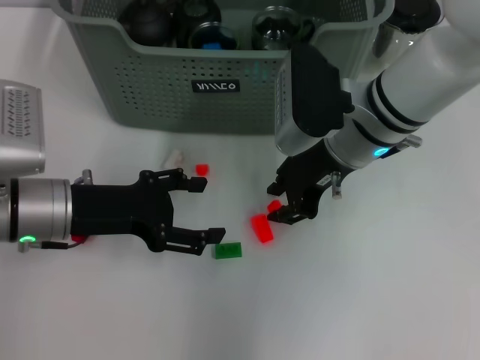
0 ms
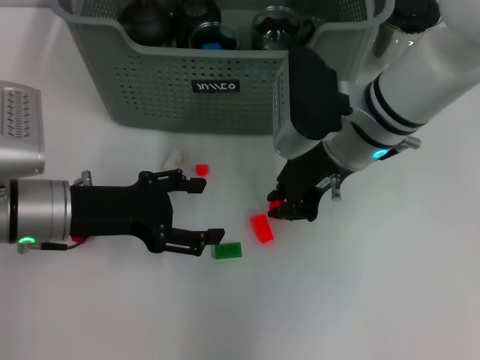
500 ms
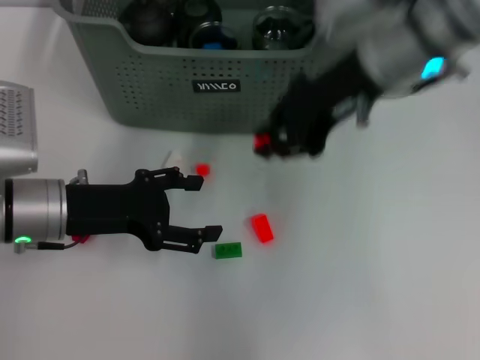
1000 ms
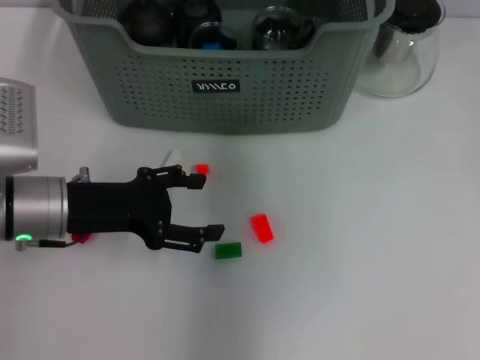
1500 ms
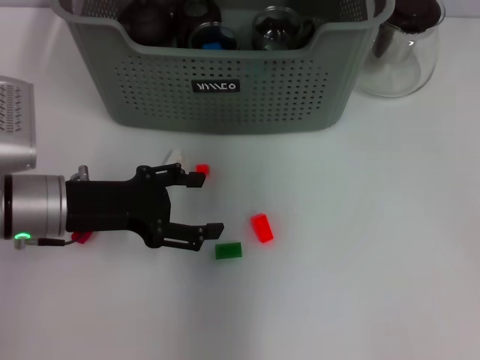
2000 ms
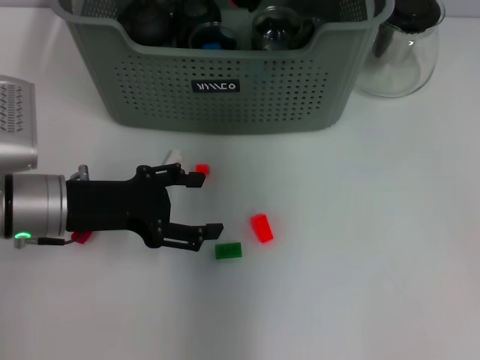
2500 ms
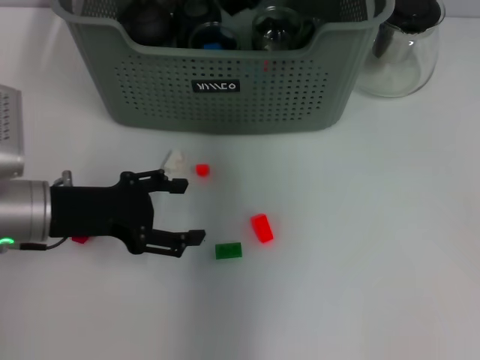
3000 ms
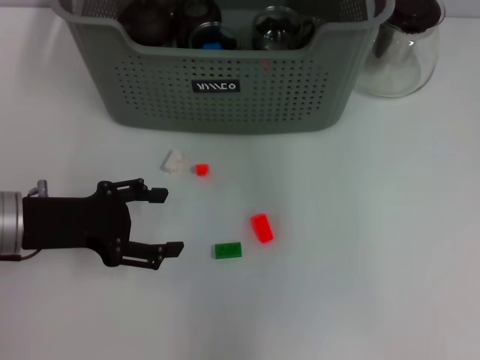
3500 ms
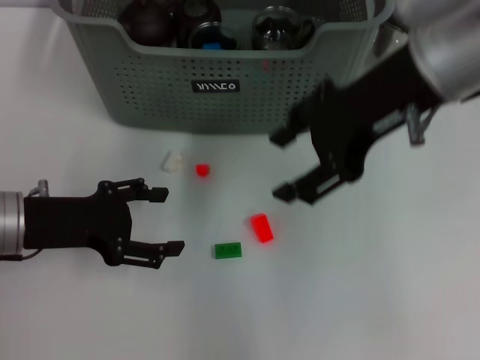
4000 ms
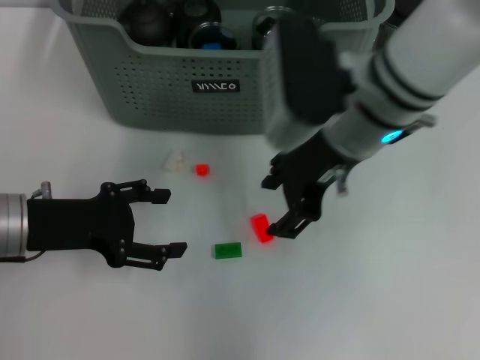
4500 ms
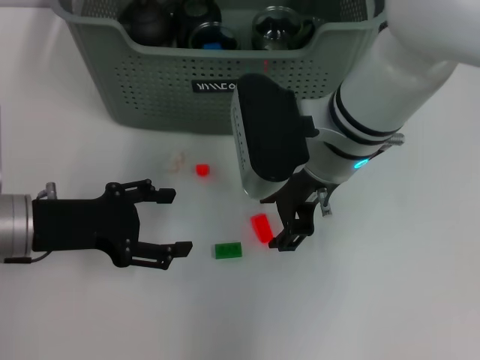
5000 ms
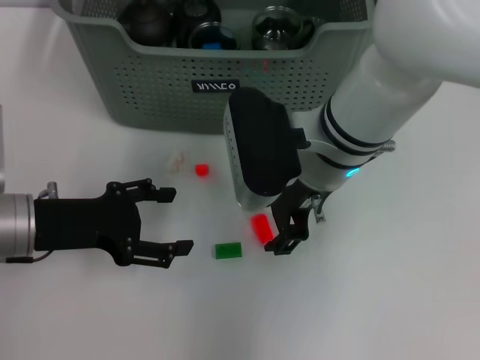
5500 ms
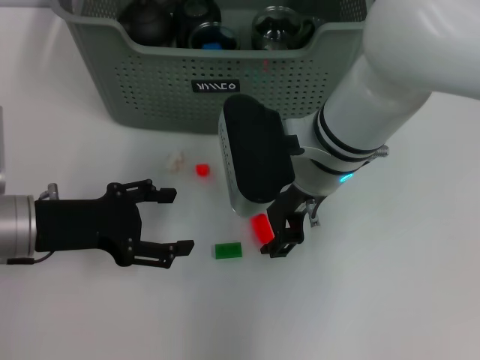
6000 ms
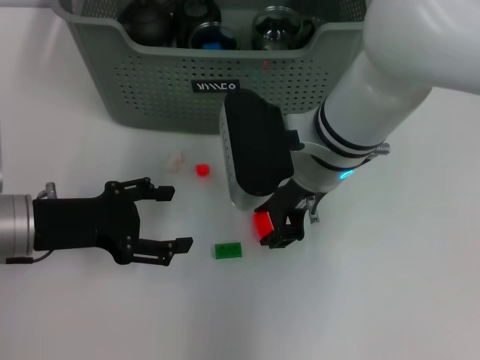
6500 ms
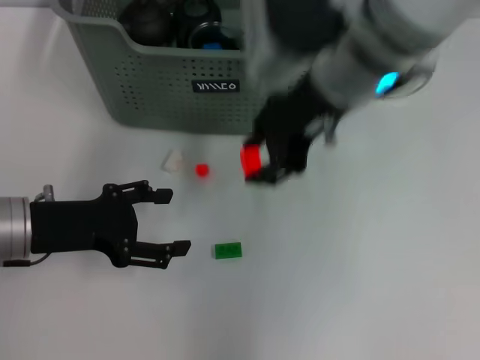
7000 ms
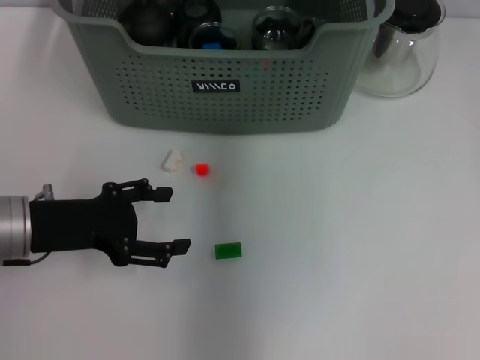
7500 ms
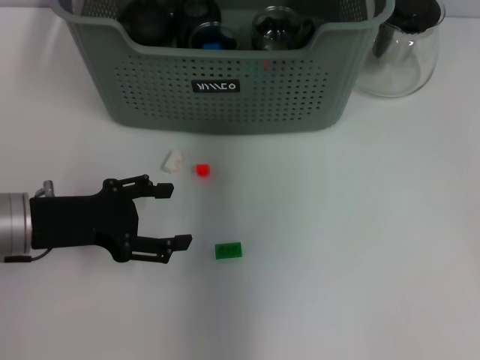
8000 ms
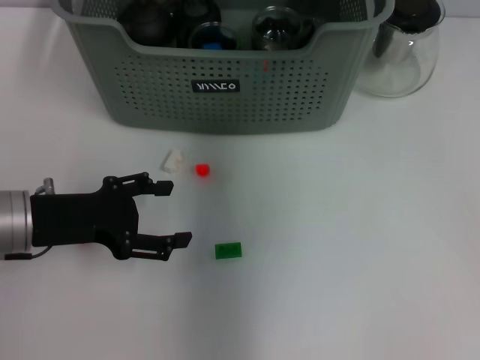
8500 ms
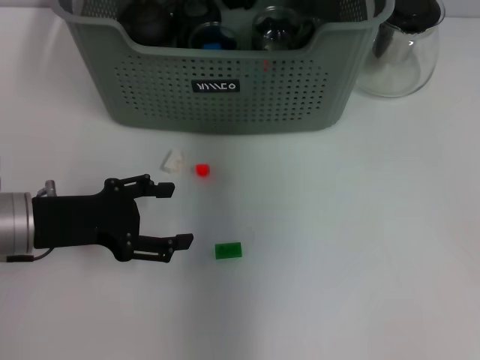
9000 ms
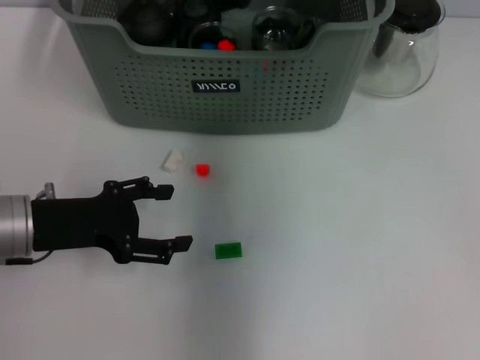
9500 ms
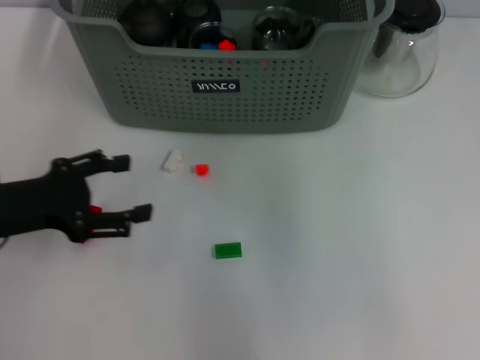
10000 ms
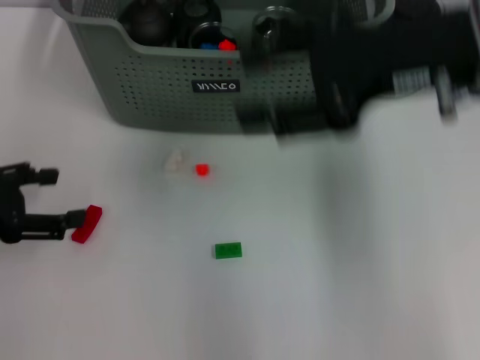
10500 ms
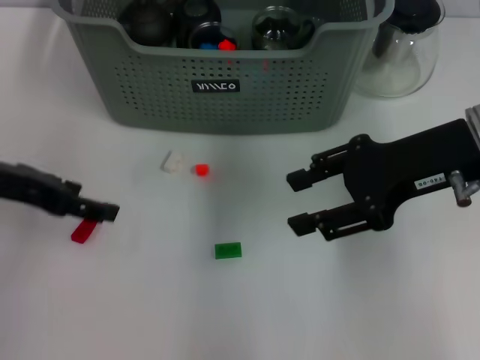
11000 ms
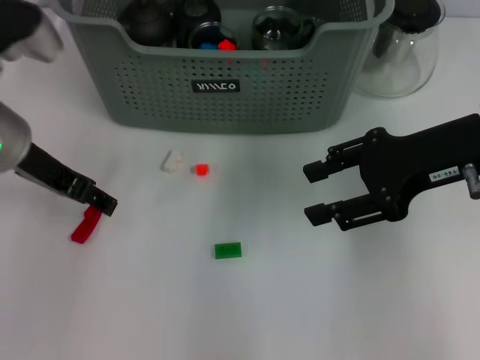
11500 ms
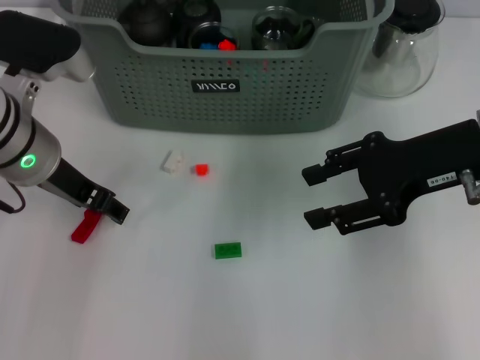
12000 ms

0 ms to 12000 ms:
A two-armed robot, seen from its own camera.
Task of the whole recording: pick up the teacup on the table and place it into the storage bin, pick up the block on the table and place it into the storage bin.
Step, 500 ms to 2500 ms: Place the orange block in the storage box with right gripper.
Step, 3000 ms to 6000 ms: Grasp the orange block with right gripper.
Step, 6500 ms to 9000 ms: Place the orange block in the storage box with right gripper.
0 ms to 2000 ms: The right gripper goes about 15 cm upward and forward, and closes its fingers.
2000 ms to 4000 ms: The right gripper is displaced backward and to the right by approximately 15 cm, and opens up.
4000 ms to 6000 ms: The right gripper heads downward and to the left, covering about 15 cm.
6000 ms to 8000 ms: The right gripper shifts roughly 20 cm upward and forward.
8000 ms to 10000 ms: The right gripper moves backward, about 5 cm, and goes downward and returns, some 5 cm each way.
10000 ms to 12000 ms: The left gripper goes roughly 15 cm to the right, forward and upward, while the right gripper heads downward, to the right and backward, covering about 20 cm.

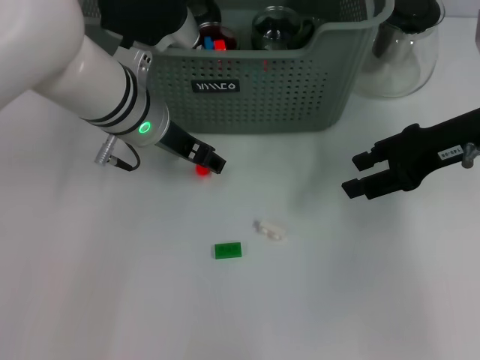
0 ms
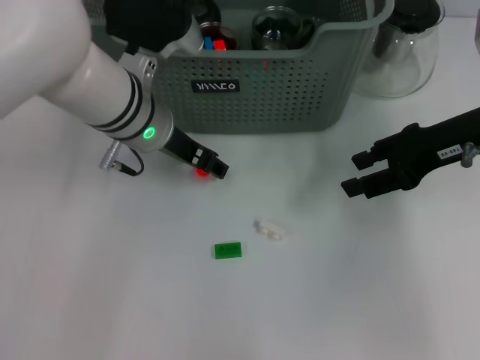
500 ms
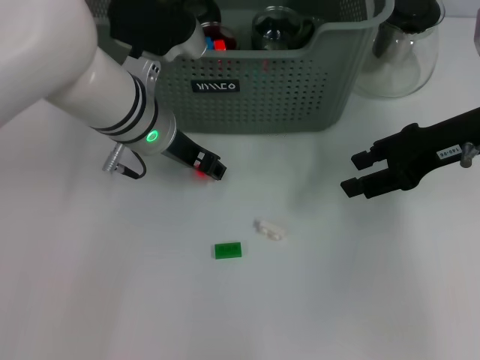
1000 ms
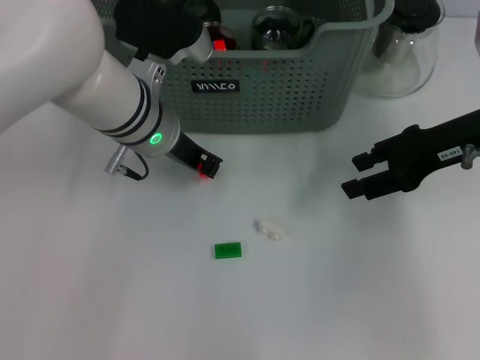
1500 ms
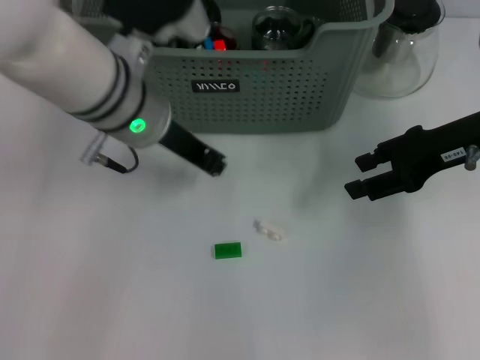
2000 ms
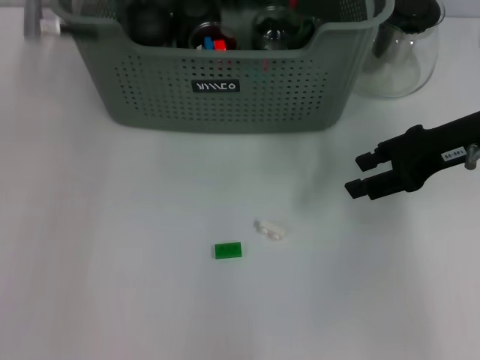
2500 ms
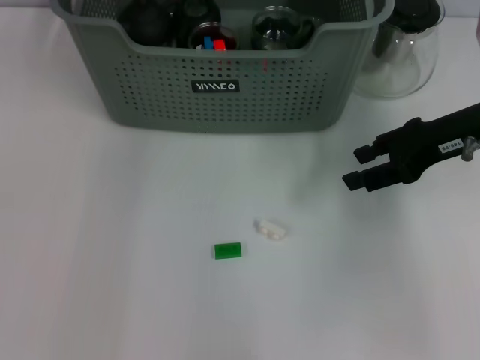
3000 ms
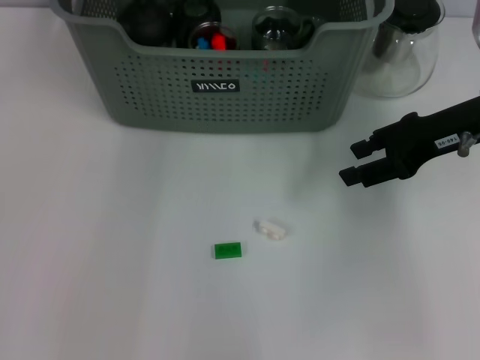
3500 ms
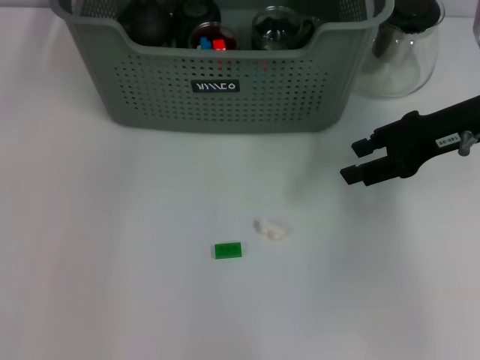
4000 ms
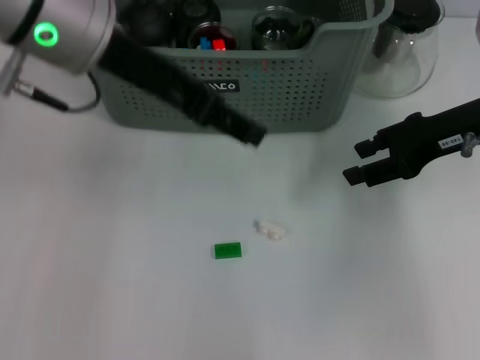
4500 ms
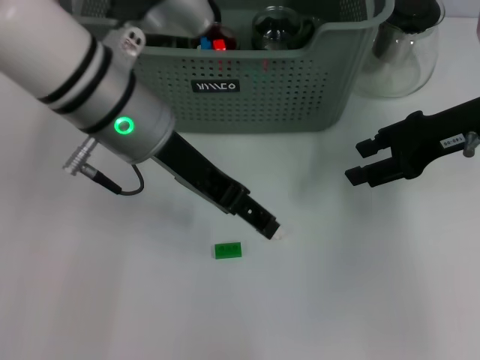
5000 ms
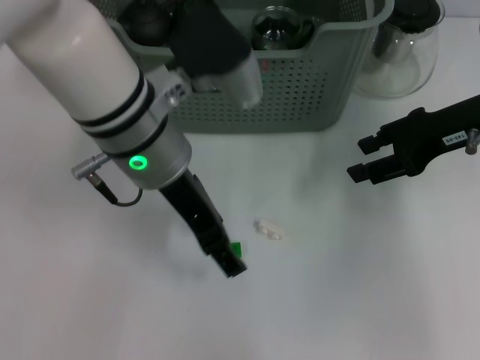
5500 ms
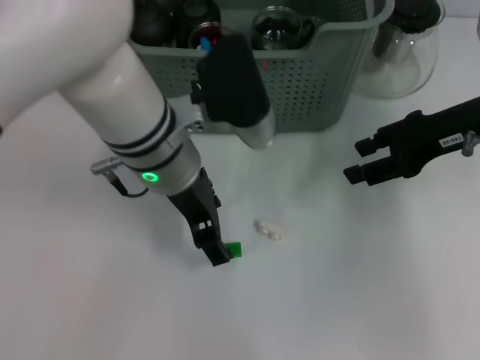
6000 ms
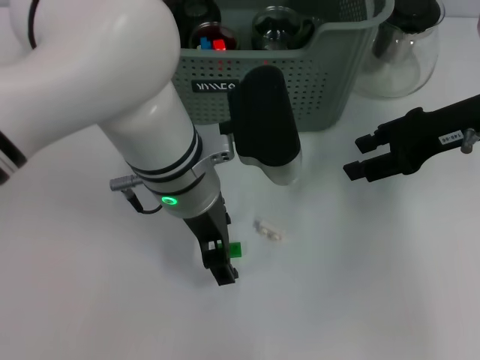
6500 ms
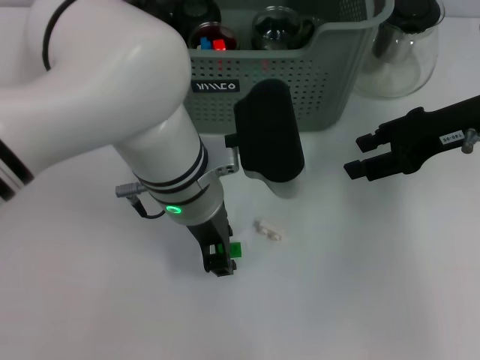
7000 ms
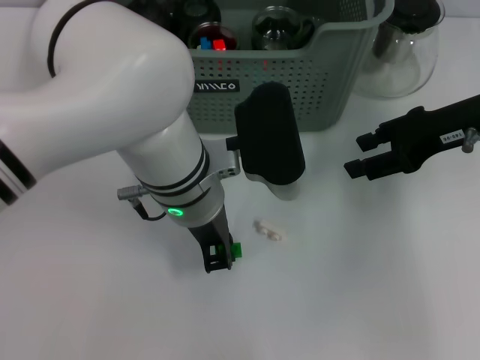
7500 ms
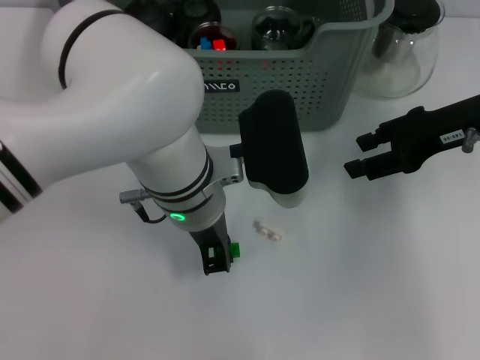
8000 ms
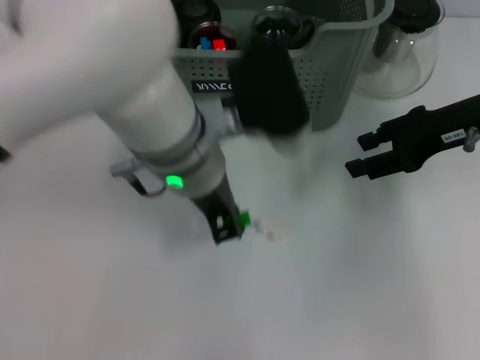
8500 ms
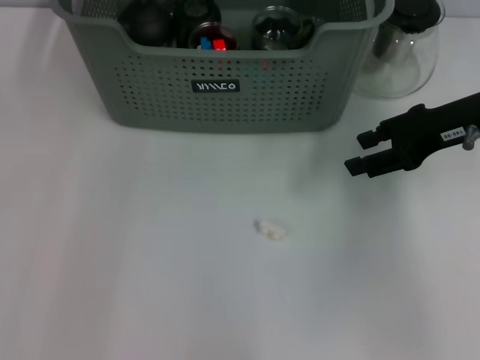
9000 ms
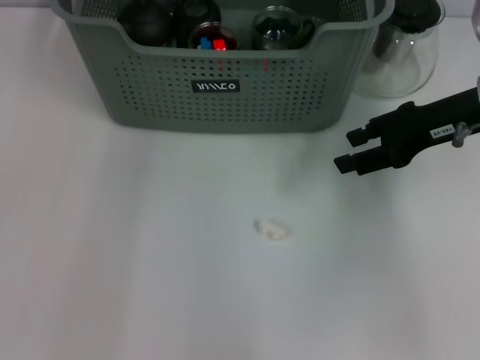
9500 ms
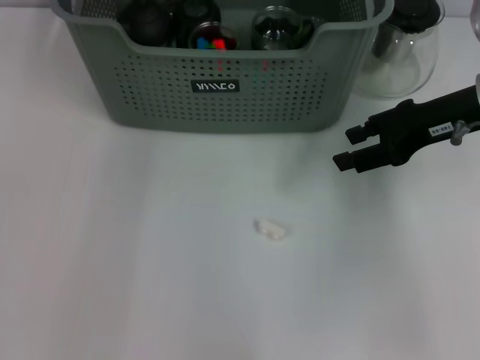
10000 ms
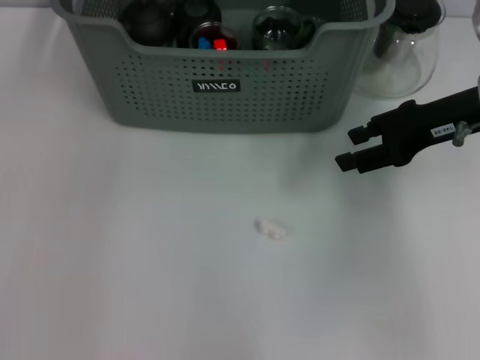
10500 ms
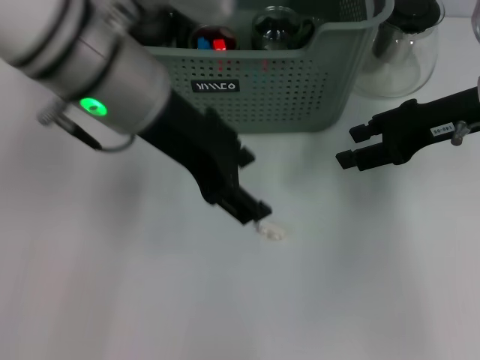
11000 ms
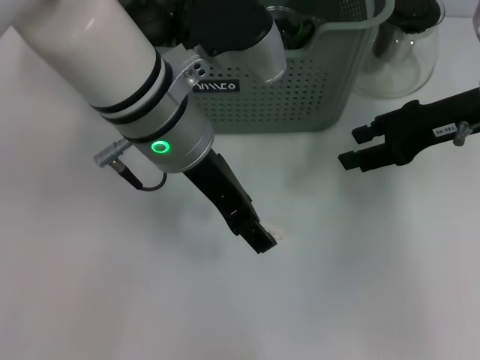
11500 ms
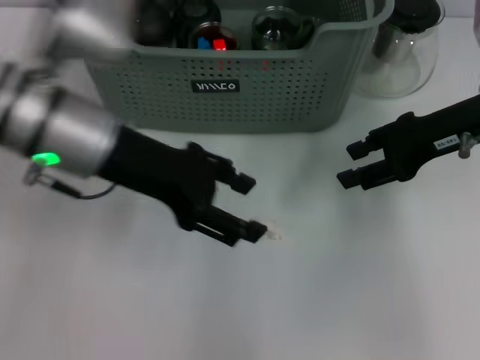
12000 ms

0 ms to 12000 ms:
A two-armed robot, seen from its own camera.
Task of the whole recording: pick up the teacup on the table and place it into the storage bin, pick up the block on the table and place it into the storage bin.
Step, 1500 ms to 3000 ms: Place the orange block in the storage box with left gripper.
Step, 4000 ms to 8000 ms: Grasp the green block with left gripper.
Step, 8500 ms to 9500 ms: Place the green block in the storage box with left gripper.
0 ms to 2000 ms: The left gripper closes up.
2000 ms to 4000 ms: The left gripper moves upward and forward, about 15 cm, and opens.
4000 ms to 6000 ms: The left gripper heads downward, backward and to the right, covering roughly 15 cm.
6000 ms to 8000 ms: The left gripper closes its fingers.
8000 ms to 10000 ms: The left gripper is displaced forward, upward and to the left by some 25 cm.
10000 ms to 12000 ms: The left gripper travels backward and downward by roughly 20 cm, and opens up.

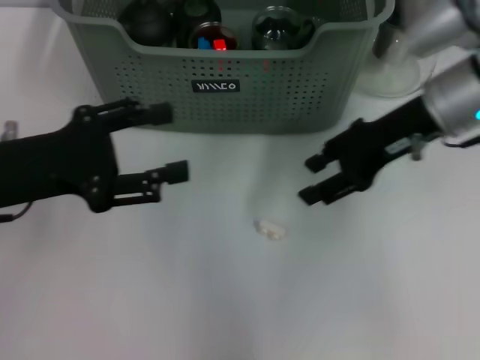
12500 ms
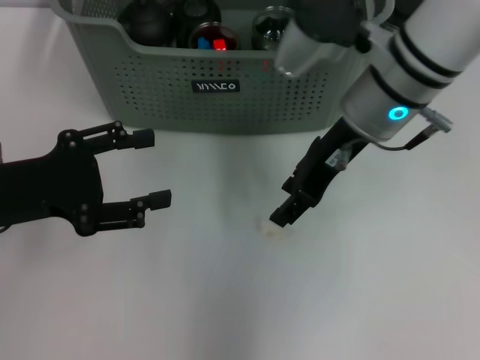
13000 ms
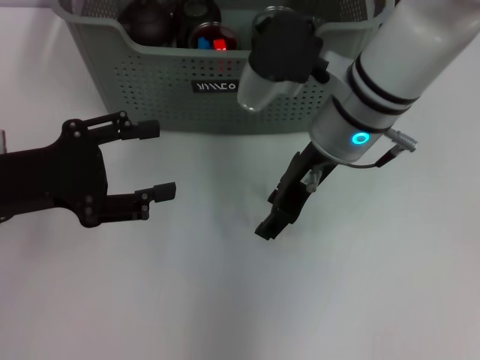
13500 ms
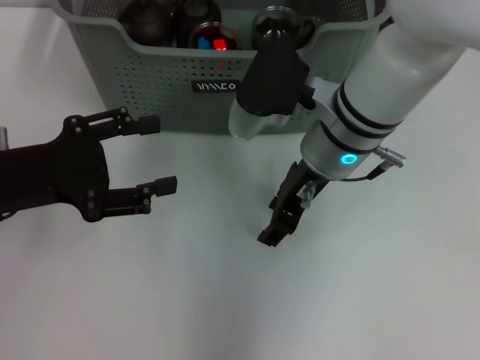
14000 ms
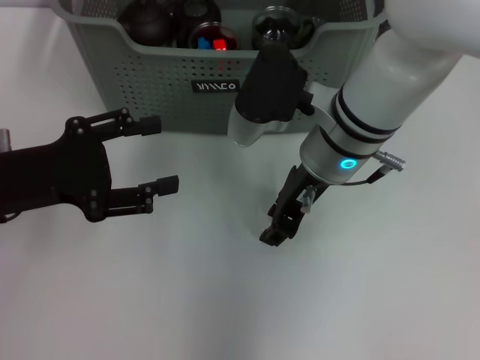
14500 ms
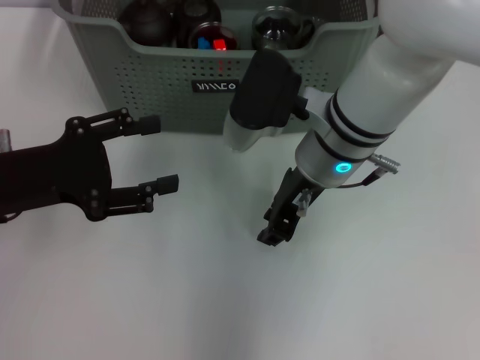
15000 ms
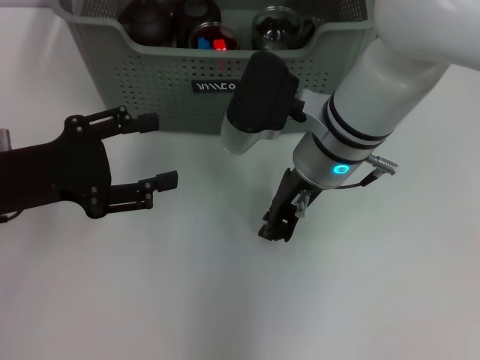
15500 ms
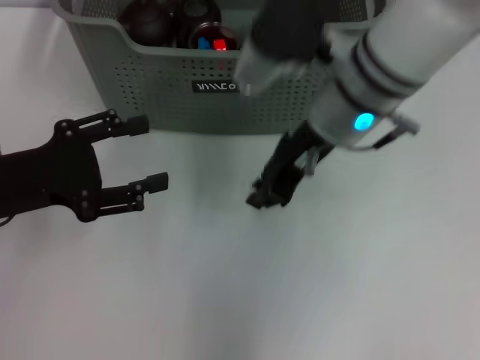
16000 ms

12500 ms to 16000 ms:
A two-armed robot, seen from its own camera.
Task of the whole recording: pick up the teacup on the table and place it into the storage bin, pick up the block on the table and place it into the storage bin.
Step, 12500 ms to 15500 ms: Grasp the white block with right gripper.
12500 ms to 14500 ms: The right gripper heads to the left, covering approximately 10 cm.
14500 ms to 16000 ms: The right gripper closes.
